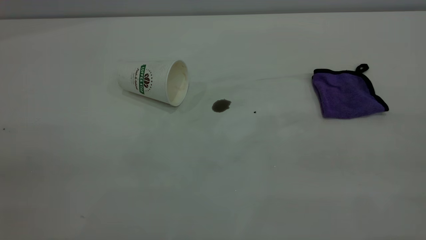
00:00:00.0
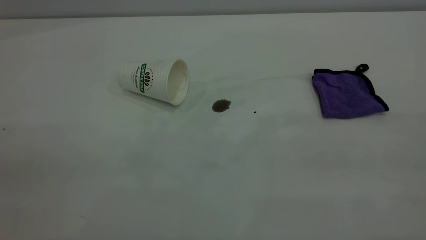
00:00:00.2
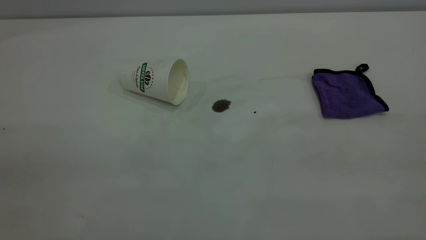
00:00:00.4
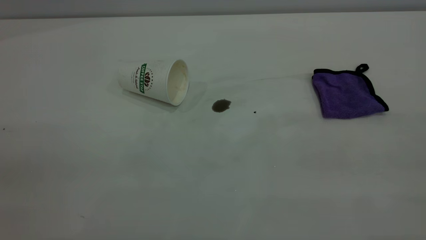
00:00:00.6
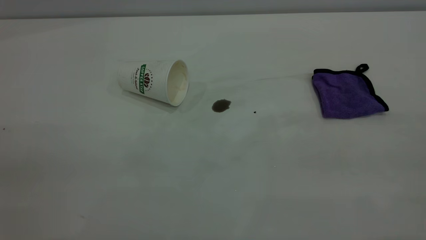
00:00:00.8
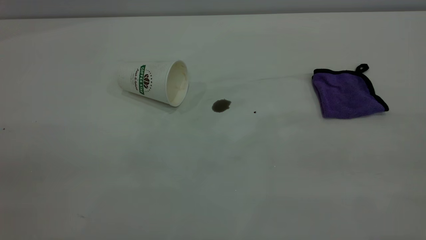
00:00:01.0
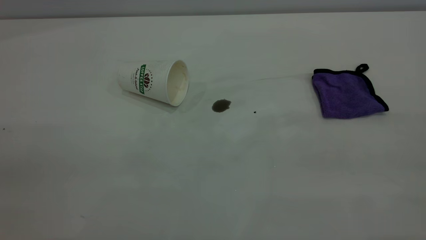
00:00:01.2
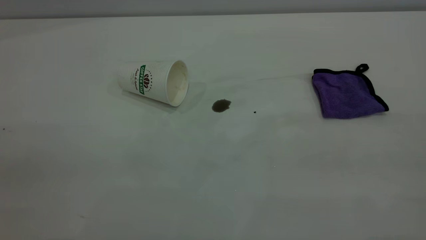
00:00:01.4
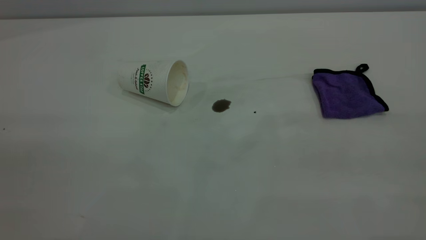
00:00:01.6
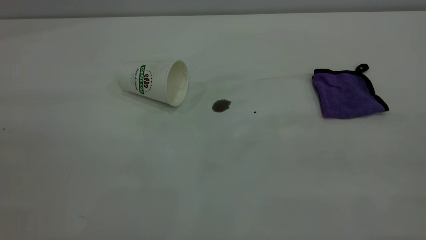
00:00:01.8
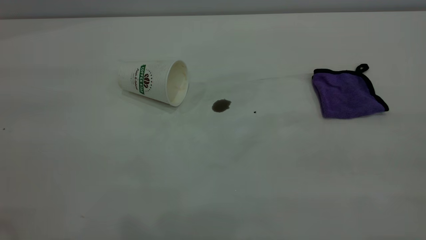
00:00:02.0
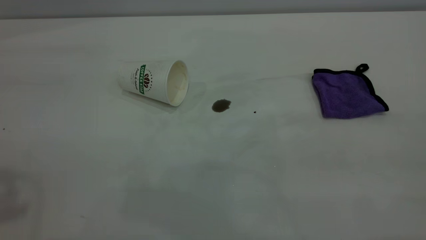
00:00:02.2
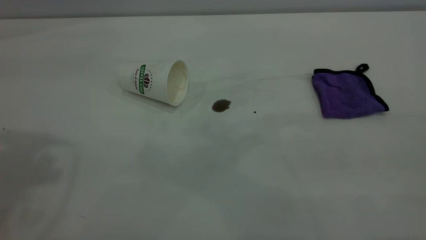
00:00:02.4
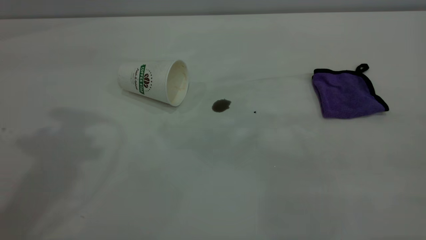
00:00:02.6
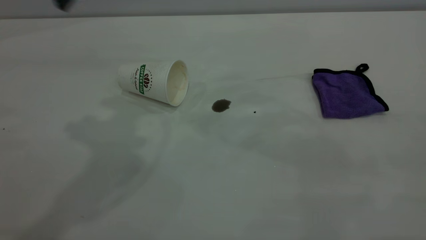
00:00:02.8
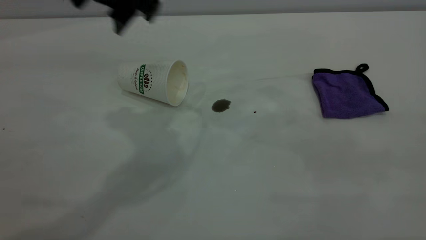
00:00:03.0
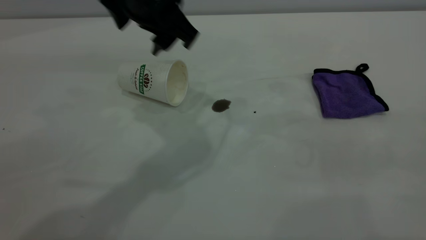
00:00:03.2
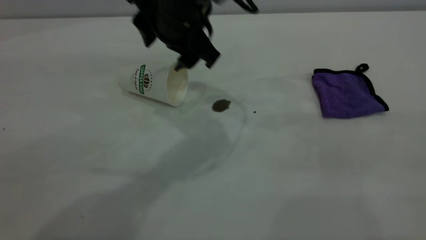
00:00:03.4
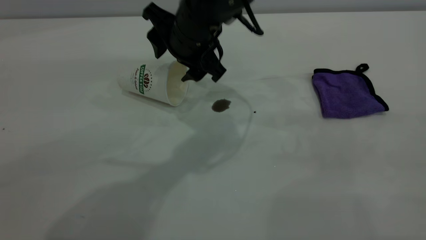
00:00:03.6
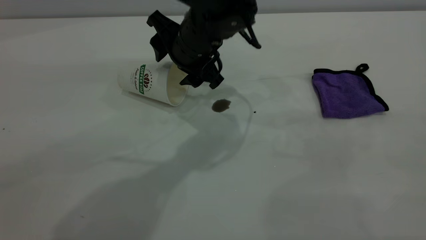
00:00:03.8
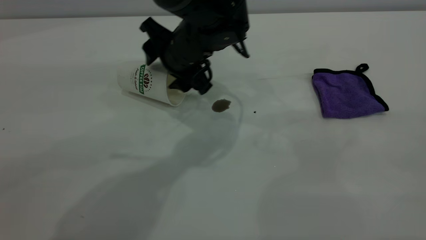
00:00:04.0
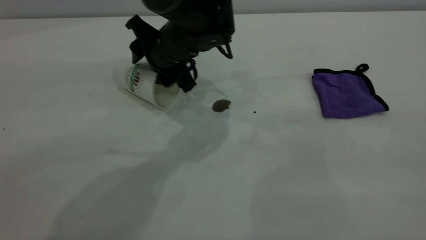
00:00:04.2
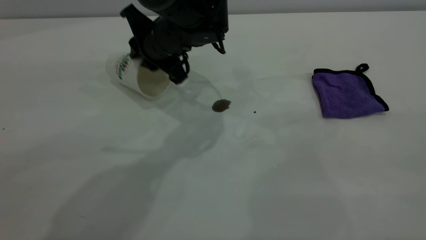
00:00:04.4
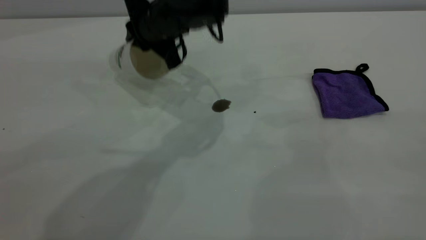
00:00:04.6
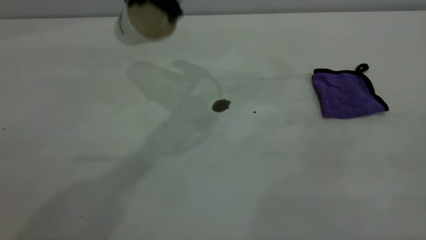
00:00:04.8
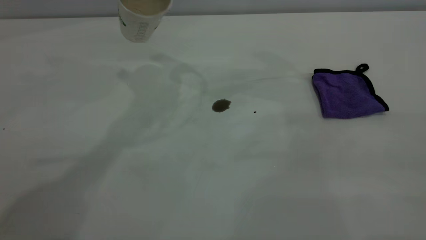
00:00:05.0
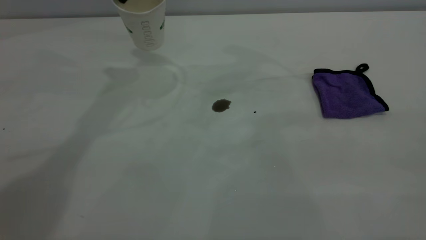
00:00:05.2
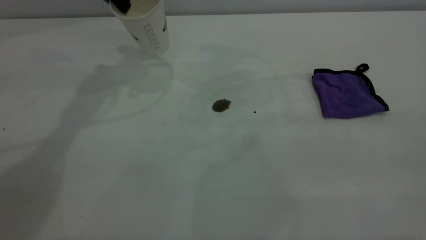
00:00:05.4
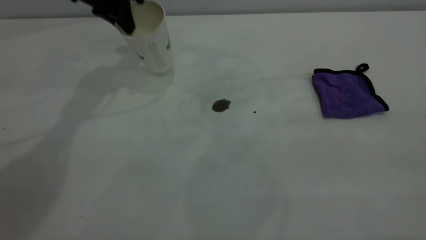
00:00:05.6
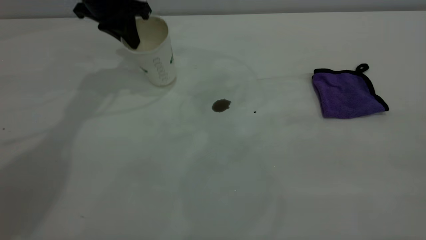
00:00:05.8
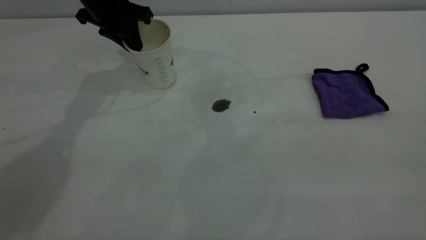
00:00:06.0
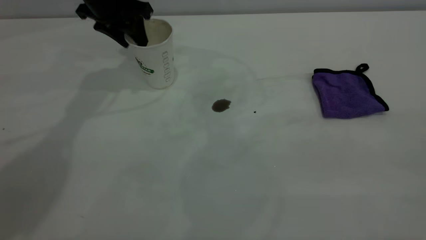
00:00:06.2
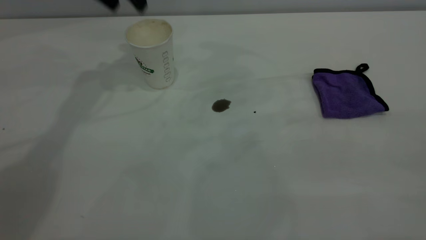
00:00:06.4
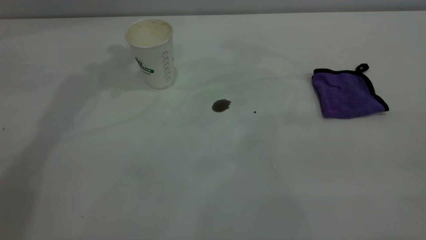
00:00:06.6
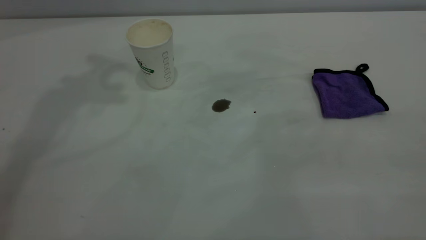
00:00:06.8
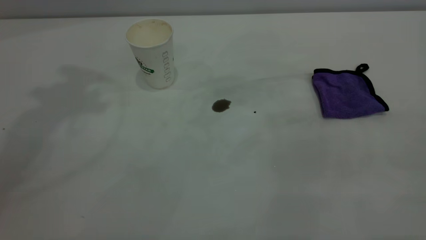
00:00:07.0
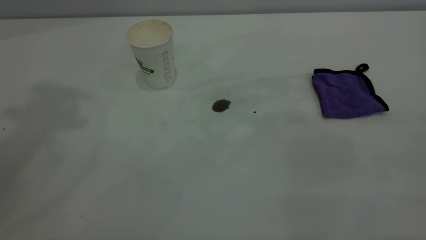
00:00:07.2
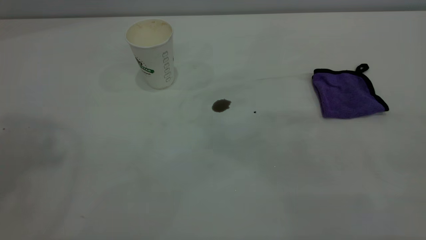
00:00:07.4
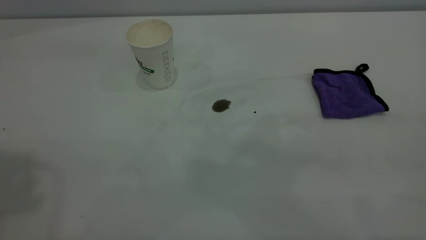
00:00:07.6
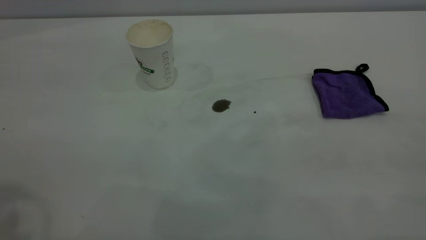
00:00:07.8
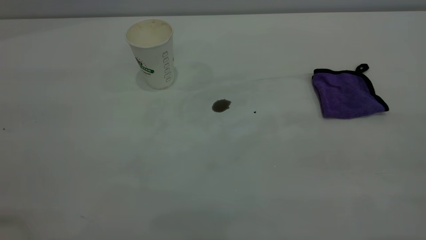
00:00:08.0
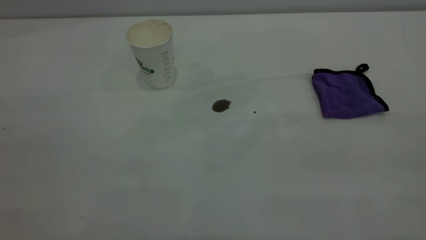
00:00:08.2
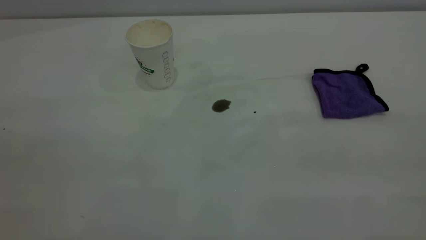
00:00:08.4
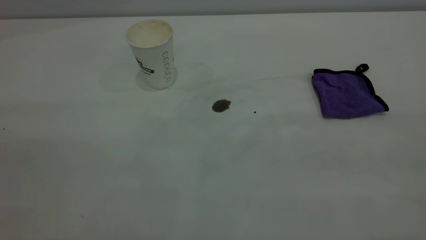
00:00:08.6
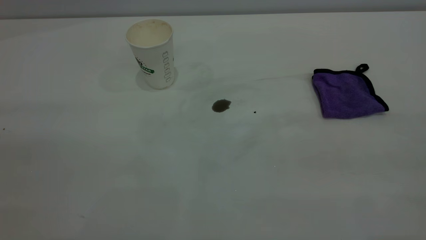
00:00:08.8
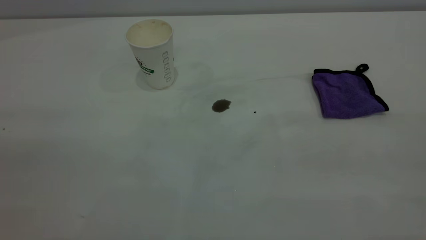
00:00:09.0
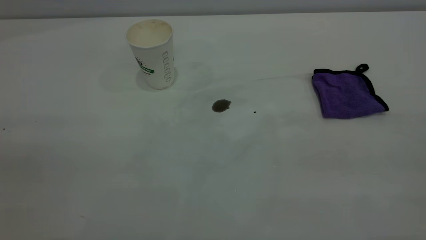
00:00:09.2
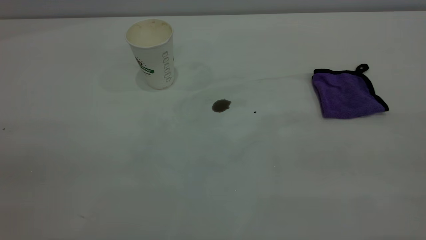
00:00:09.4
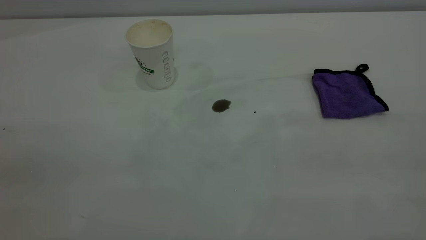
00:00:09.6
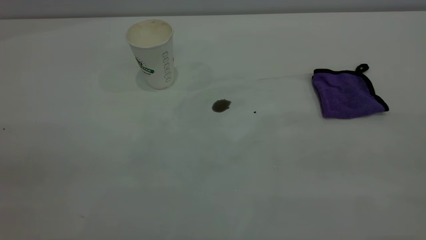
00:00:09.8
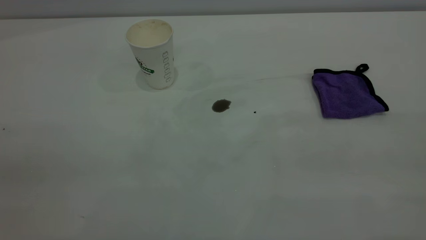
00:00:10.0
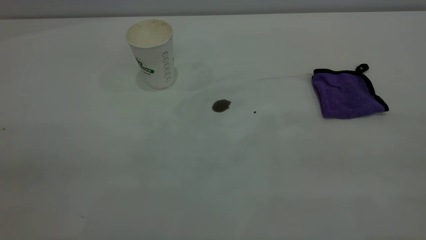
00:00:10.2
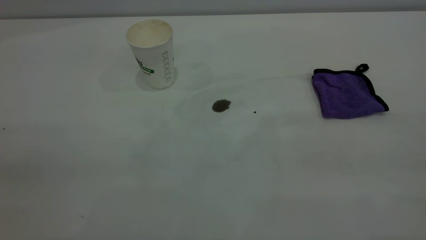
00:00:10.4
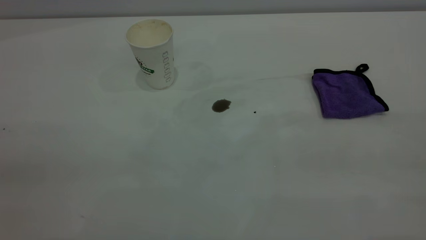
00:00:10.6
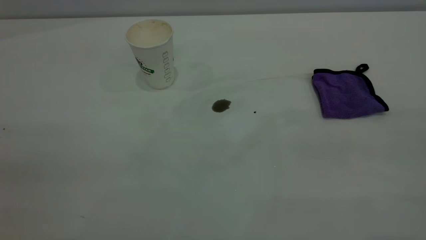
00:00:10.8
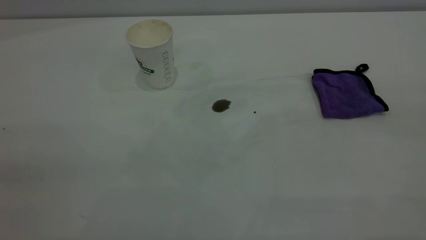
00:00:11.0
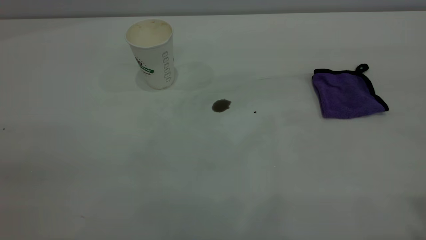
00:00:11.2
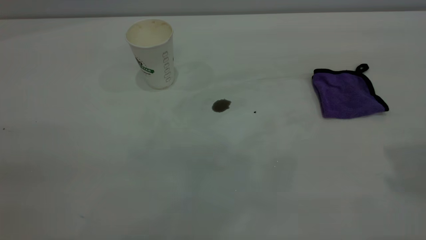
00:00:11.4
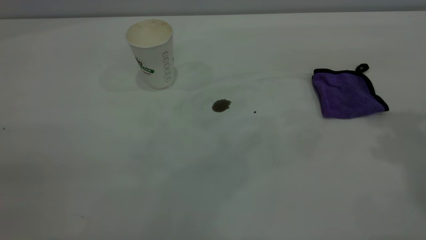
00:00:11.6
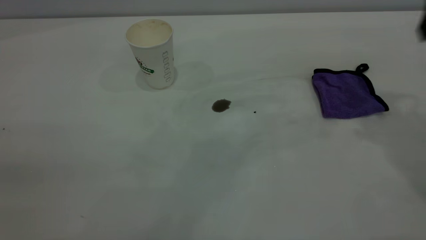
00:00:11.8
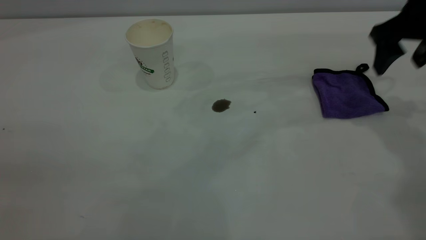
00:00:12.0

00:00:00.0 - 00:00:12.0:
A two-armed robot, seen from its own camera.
Task of the whole recording: the left gripper pick up the fallen cup and place it upright, the right gripper grasp the purple rag and wipe the coffee stain on the table, the right gripper put the purple rag back in its original position.
Step, 00:00:00.0 - 00:00:06.2: Stand the paper cup upright.
00:00:01.6 - 00:00:03.0: The left gripper is displaced forward and to the right by some 40 cm.
00:00:03.0 - 00:00:04.4: The left gripper shifts about 15 cm downward and forward, and closes up.
00:00:04.4 - 00:00:06.0: The left gripper travels to the left and forward by roughly 15 cm, and goes upward and returns, some 15 cm each way.
00:00:06.0 - 00:00:07.6: The left gripper moves upward and backward, about 40 cm, and opens its fingers.
00:00:10.4 - 00:00:12.0: The right gripper heads forward and downward, covering some 40 cm.

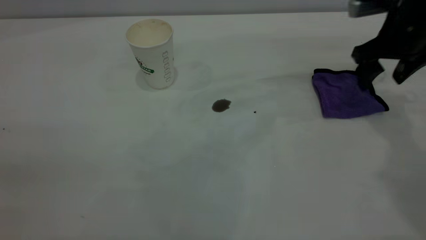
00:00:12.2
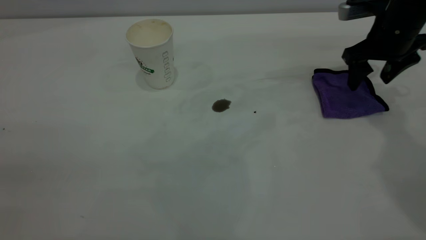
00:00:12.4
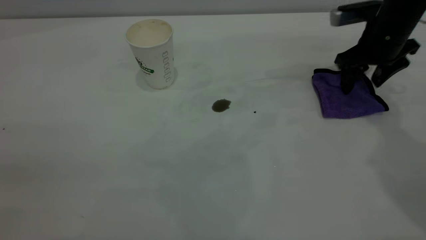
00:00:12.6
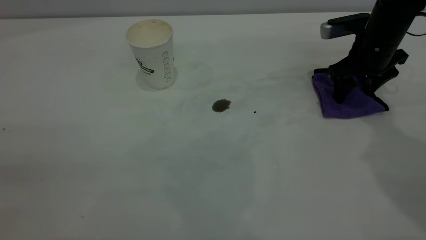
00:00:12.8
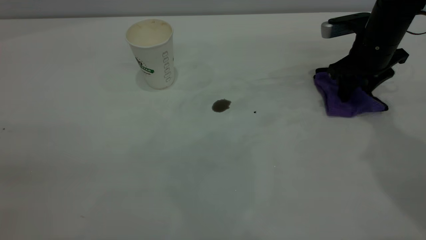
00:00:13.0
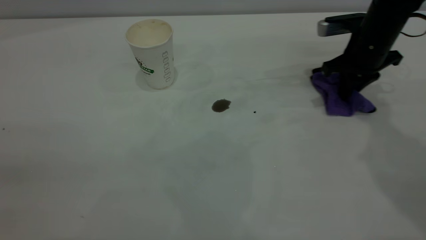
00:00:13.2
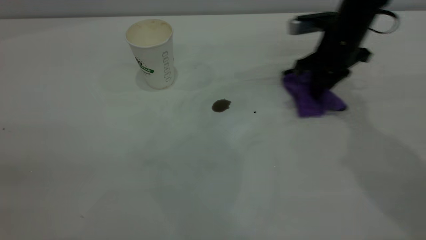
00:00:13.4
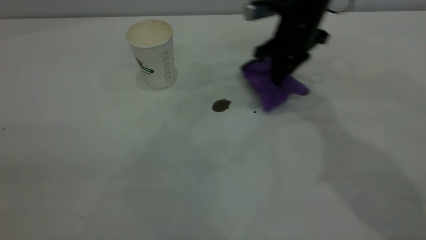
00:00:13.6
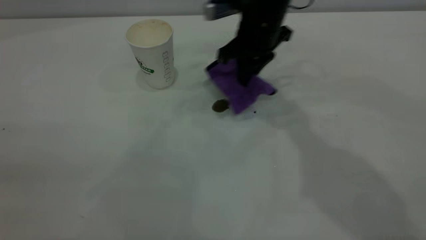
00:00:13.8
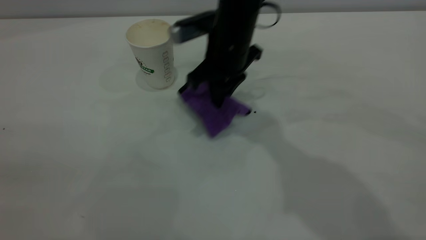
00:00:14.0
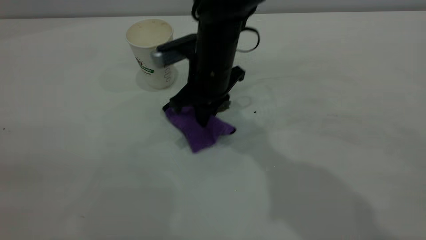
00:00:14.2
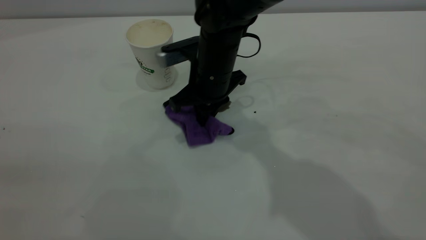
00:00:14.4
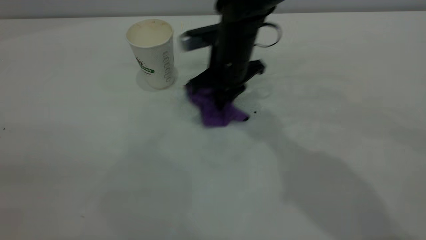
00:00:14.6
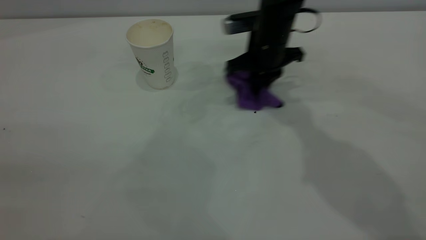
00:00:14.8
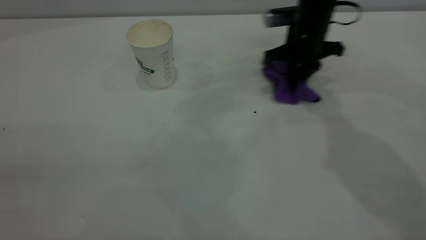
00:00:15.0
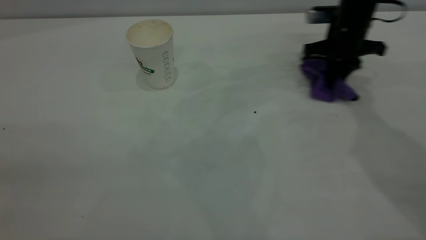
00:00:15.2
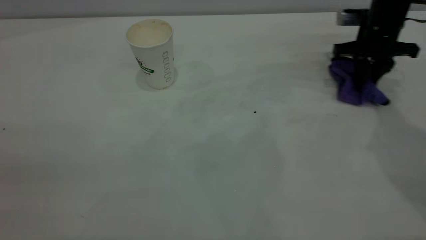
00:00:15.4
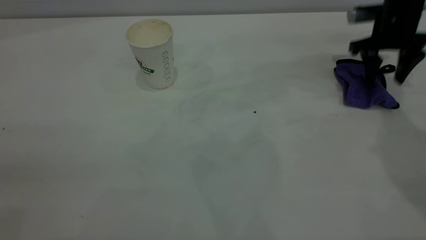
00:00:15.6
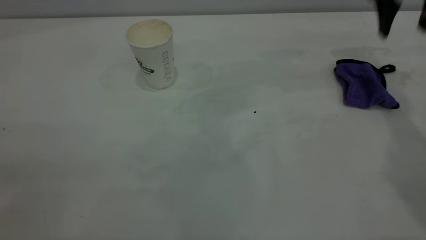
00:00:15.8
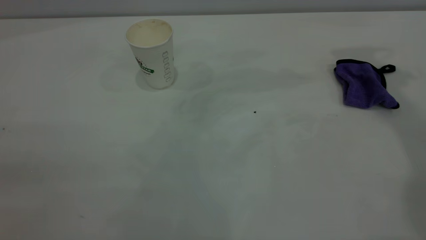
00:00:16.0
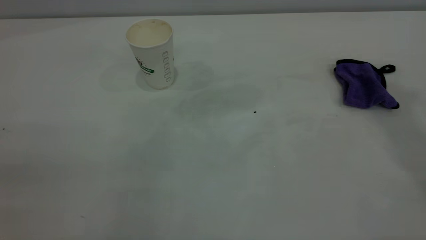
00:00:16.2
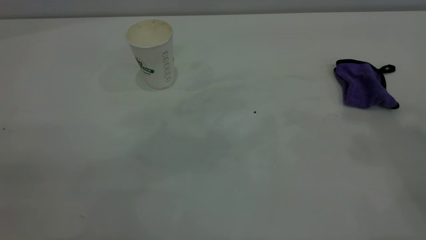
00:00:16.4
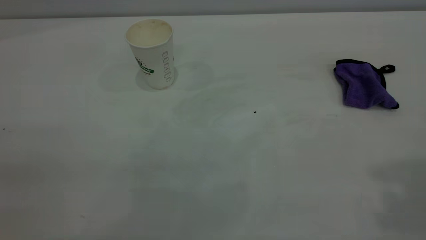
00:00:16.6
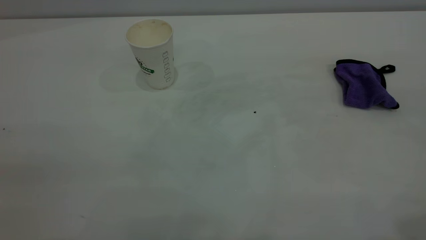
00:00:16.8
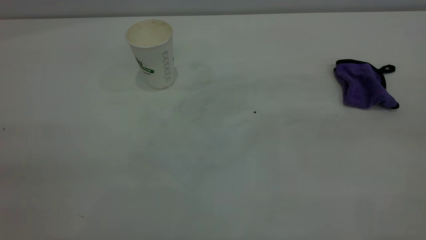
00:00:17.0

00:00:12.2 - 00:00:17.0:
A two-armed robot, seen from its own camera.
Task of the whole recording: the left gripper pick up the fallen cup and place it upright, the right gripper grasp the purple rag and wipe the coffee stain on the table, the right gripper put the purple rag back in its original position.
Step, 00:00:12.2 - 00:00:15.6: Wipe the stains off the table with a rag.
00:00:12.2 - 00:00:13.8: The right gripper is displaced to the left by about 20 cm, and closes its fingers.
00:00:13.8 - 00:00:15.4: The right gripper travels to the right by approximately 25 cm.
00:00:15.4 - 00:00:17.0: The right gripper shifts roughly 50 cm backward and upward, and opens up.
